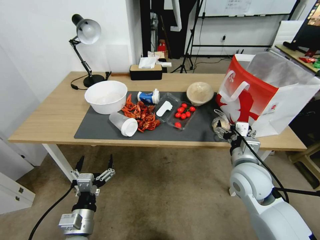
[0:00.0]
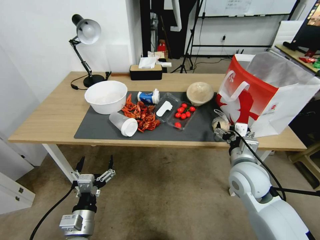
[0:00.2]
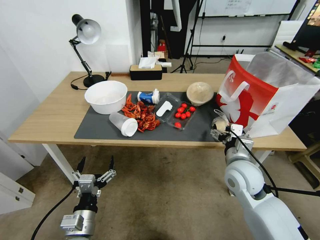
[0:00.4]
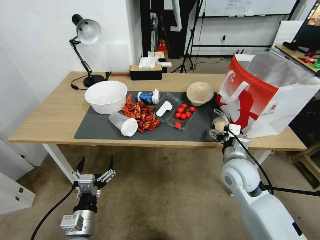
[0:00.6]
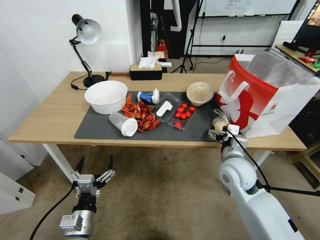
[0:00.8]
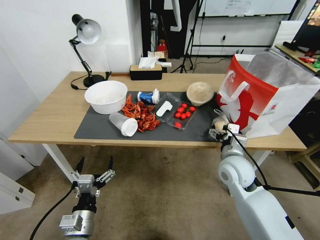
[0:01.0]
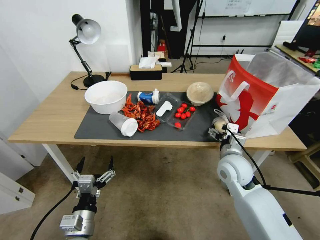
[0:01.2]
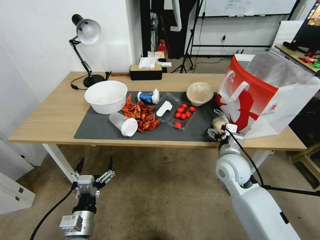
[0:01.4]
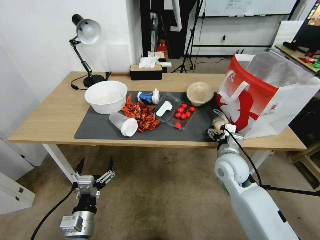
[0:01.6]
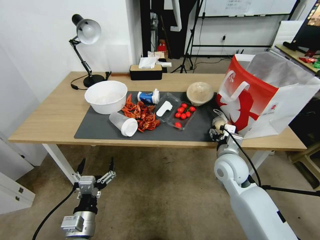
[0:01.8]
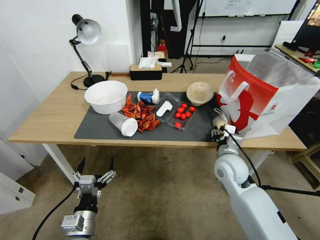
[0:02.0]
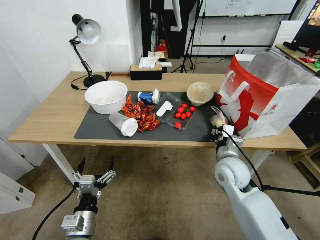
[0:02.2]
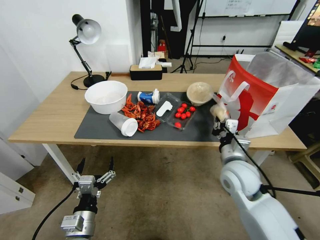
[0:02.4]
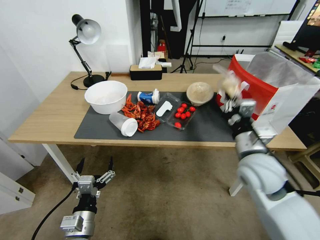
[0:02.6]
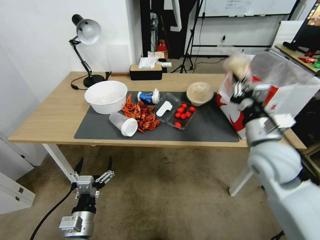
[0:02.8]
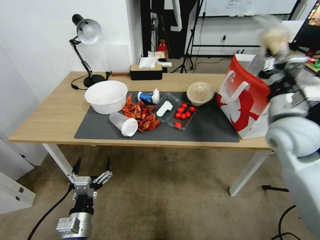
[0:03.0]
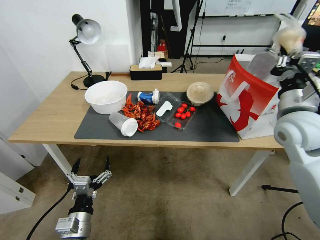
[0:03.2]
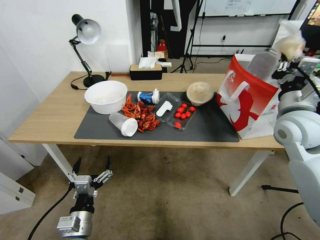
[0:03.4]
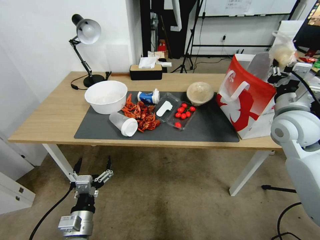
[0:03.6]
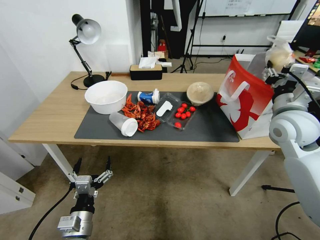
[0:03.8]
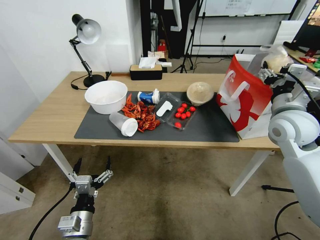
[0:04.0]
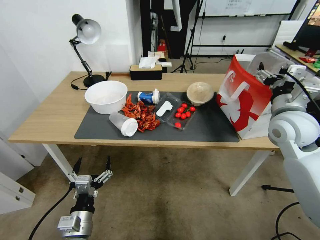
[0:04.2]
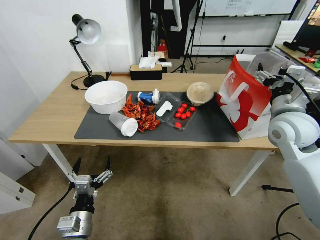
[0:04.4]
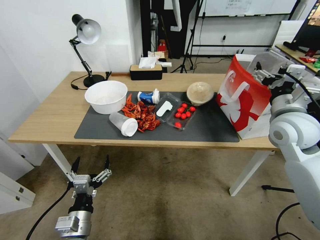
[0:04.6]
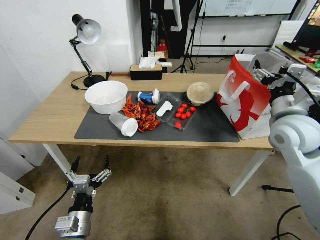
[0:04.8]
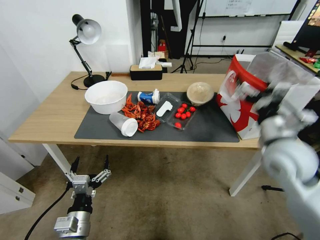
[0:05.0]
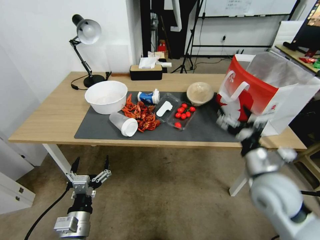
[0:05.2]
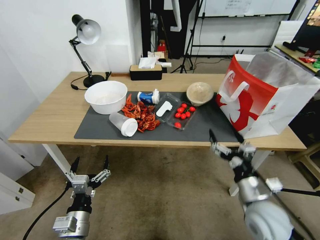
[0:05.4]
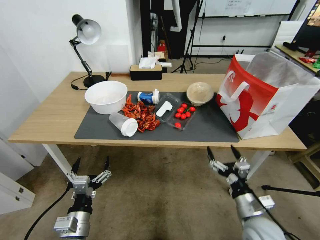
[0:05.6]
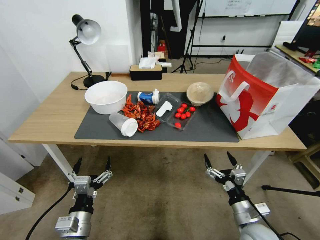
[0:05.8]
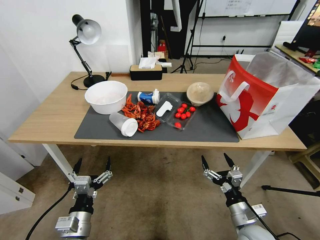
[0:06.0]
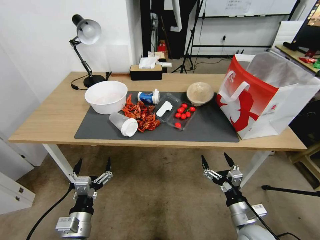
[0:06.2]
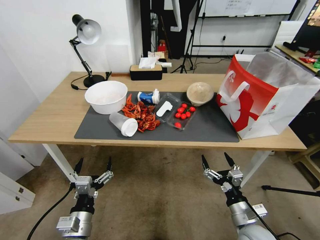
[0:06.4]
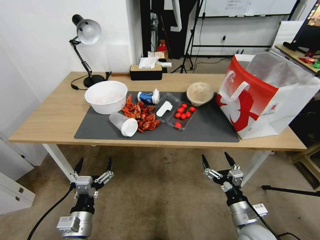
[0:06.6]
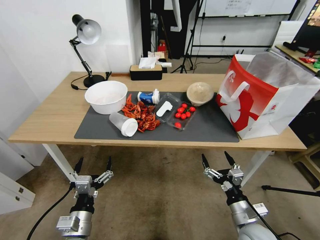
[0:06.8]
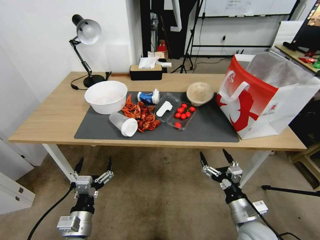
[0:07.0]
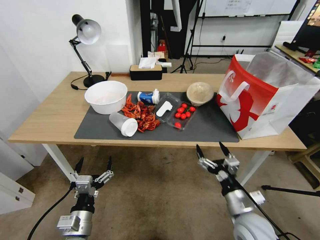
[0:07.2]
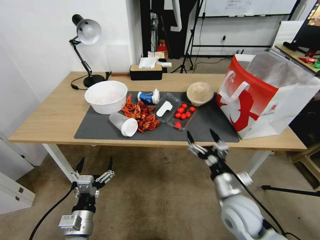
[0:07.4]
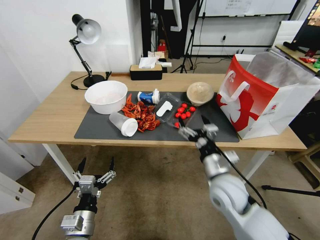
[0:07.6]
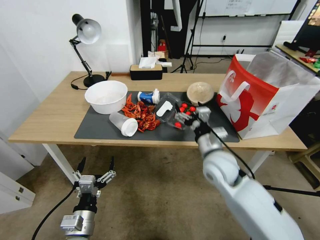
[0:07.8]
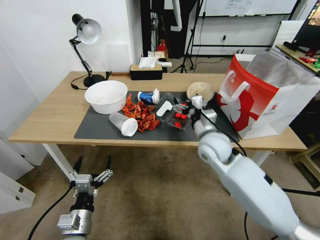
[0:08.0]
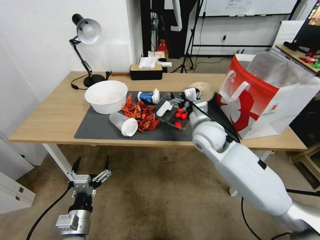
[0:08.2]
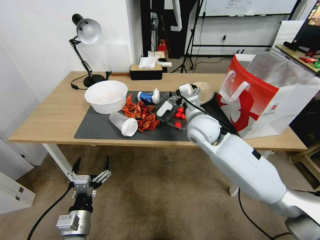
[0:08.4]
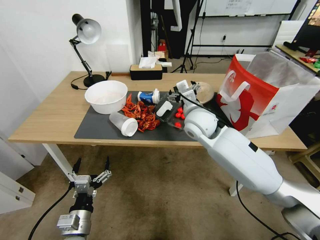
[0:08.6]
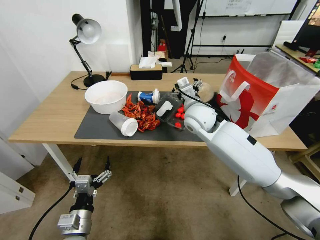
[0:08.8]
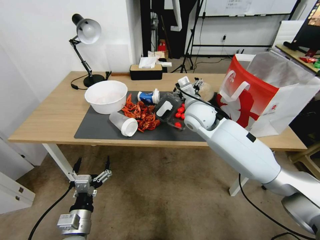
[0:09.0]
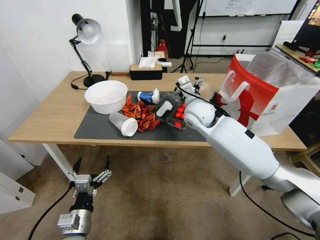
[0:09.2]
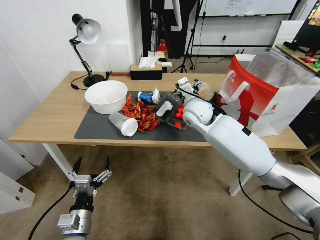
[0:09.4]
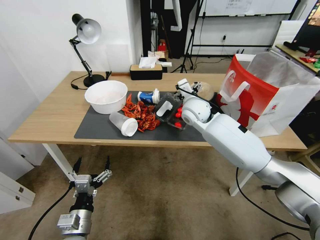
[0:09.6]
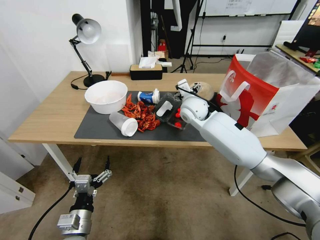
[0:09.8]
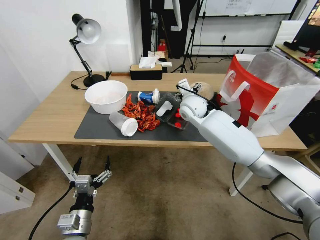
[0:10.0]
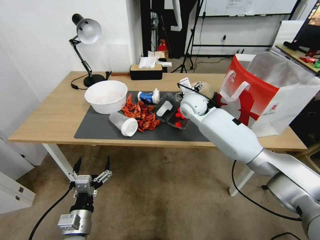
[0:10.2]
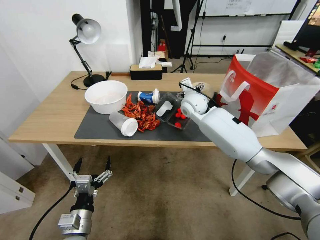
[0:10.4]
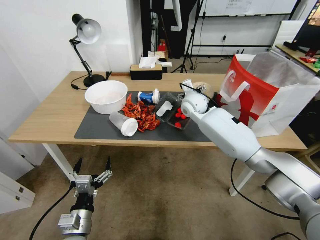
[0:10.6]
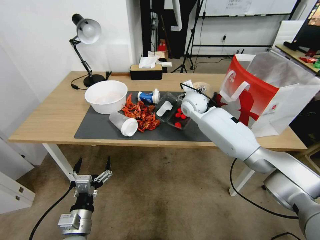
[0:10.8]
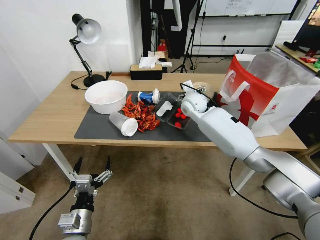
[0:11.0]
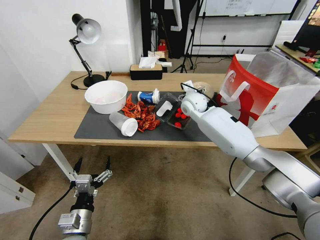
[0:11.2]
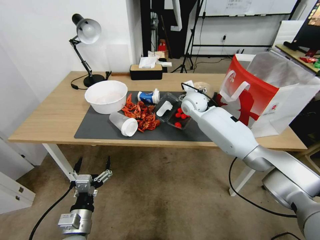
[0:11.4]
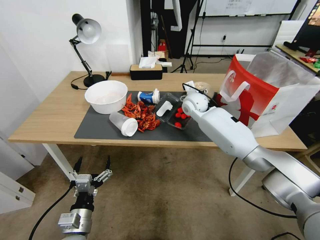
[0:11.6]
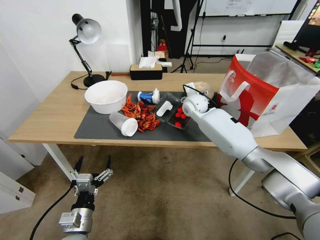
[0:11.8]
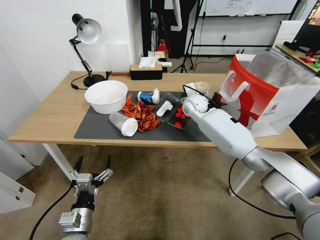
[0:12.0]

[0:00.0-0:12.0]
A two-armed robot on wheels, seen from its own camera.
0:00.0 to 0:01.6: The right gripper is displaced forward by roughly 5 cm.
0:01.6 to 0:03.0: The right gripper travels upward and to the right by roughly 20 cm, and closes up.
0:03.0 to 0:04.4: The right gripper moves some 5 cm, and opens.
0:04.4 to 0:06.0: The right gripper moves downward and backward, roughly 35 cm.
0:06.0 to 0:07.6: The right gripper shifts about 20 cm upward, forward and to the left.
0:07.6 to 0:09.0: The right gripper moves forward and upward, roughly 20 cm.
0:09.0 to 0:10.4: The right gripper shifts approximately 10 cm forward.
0:10.4 to 0:12.0: The grippers stay close to where they were, moving slightly.

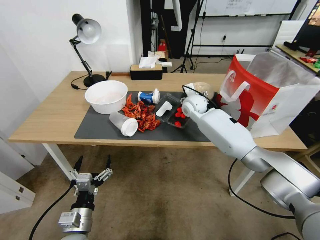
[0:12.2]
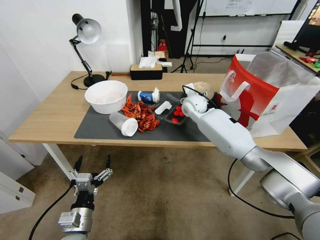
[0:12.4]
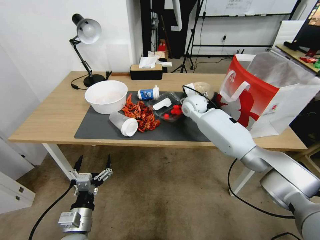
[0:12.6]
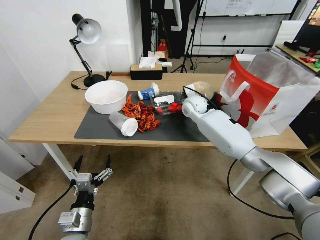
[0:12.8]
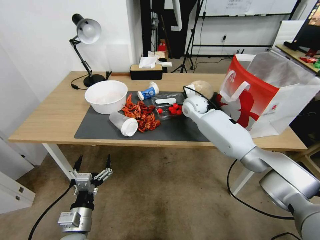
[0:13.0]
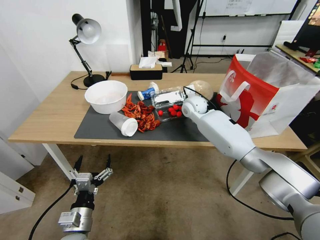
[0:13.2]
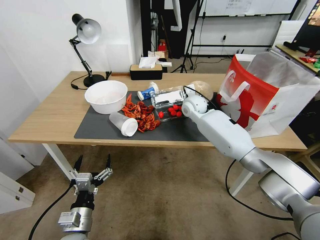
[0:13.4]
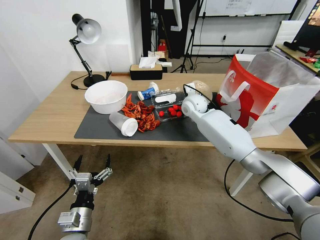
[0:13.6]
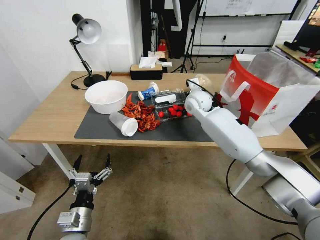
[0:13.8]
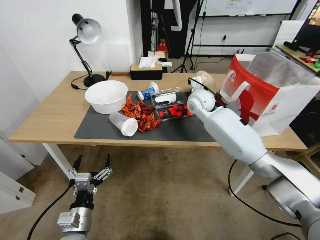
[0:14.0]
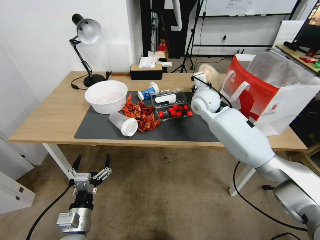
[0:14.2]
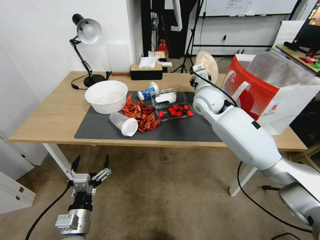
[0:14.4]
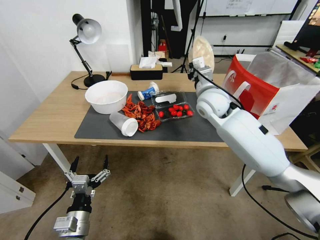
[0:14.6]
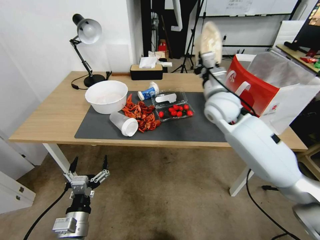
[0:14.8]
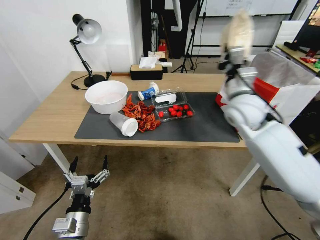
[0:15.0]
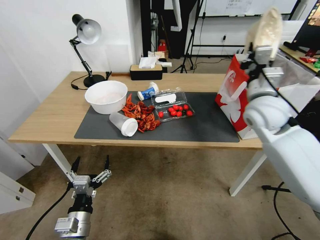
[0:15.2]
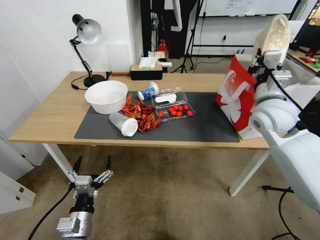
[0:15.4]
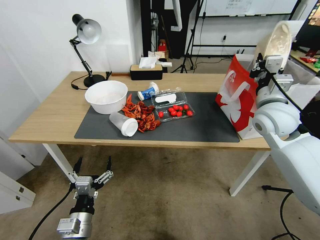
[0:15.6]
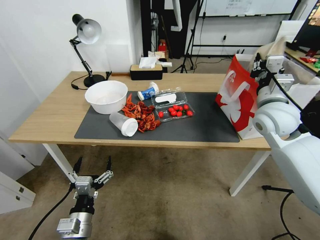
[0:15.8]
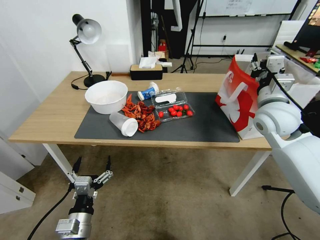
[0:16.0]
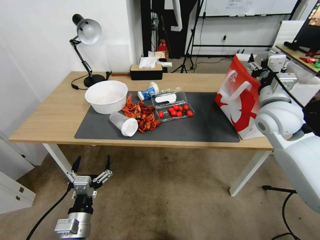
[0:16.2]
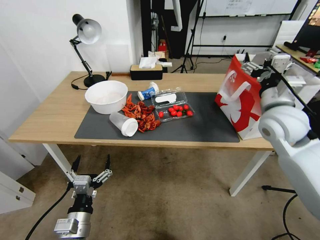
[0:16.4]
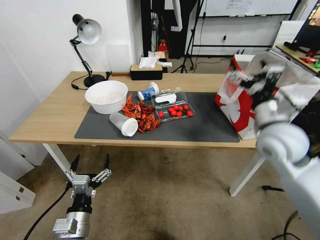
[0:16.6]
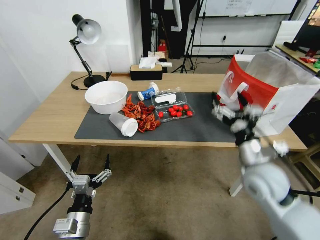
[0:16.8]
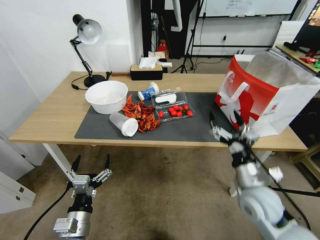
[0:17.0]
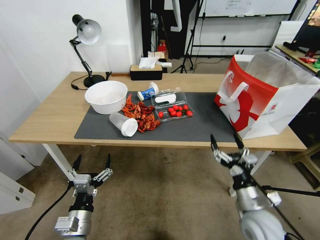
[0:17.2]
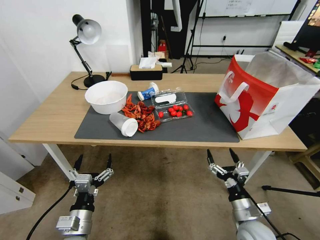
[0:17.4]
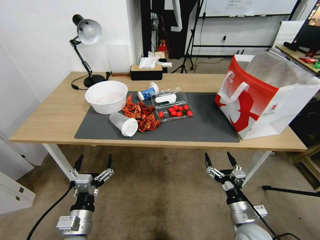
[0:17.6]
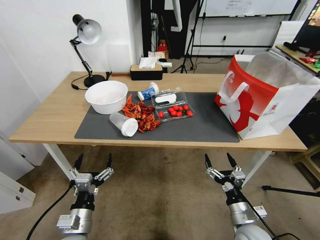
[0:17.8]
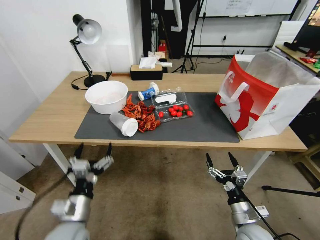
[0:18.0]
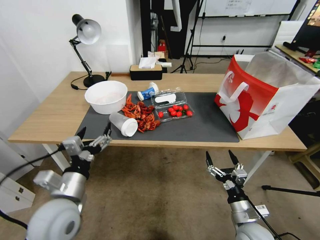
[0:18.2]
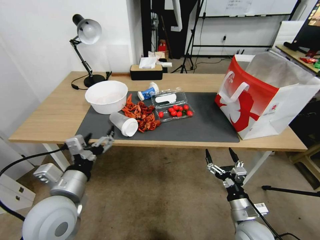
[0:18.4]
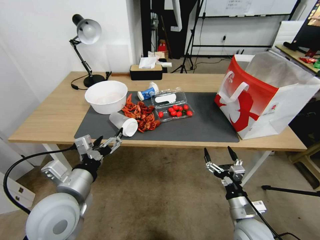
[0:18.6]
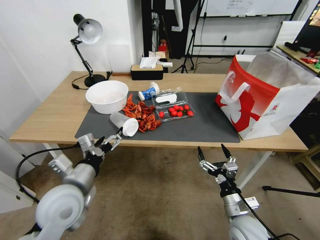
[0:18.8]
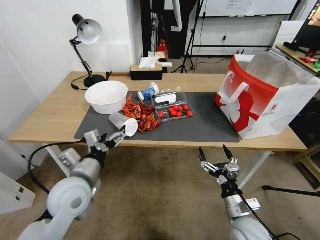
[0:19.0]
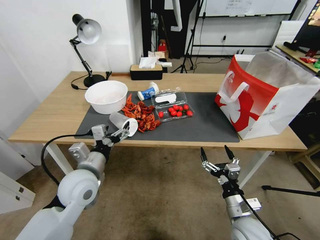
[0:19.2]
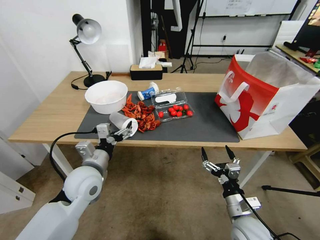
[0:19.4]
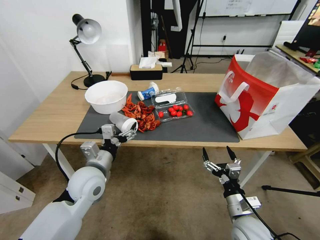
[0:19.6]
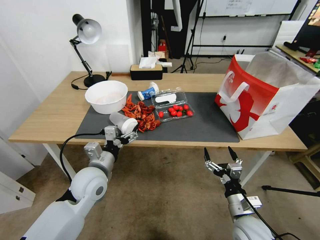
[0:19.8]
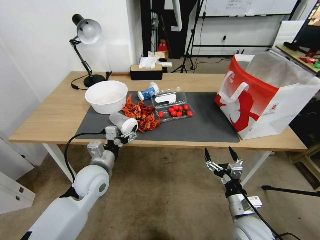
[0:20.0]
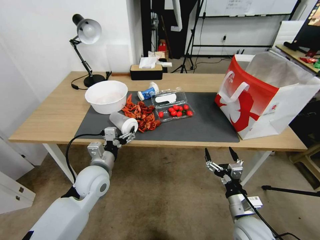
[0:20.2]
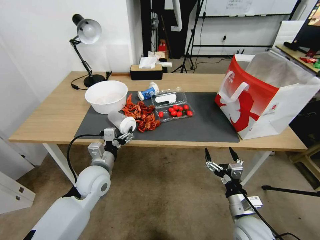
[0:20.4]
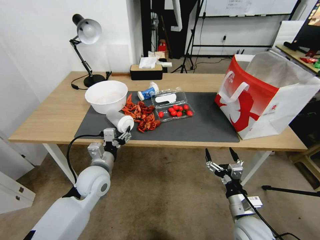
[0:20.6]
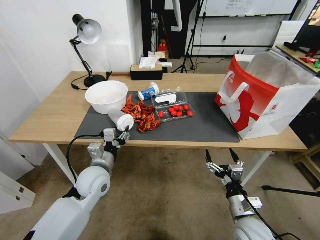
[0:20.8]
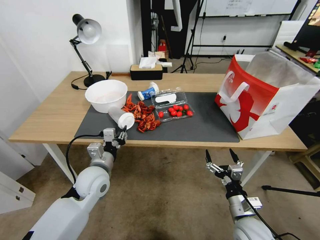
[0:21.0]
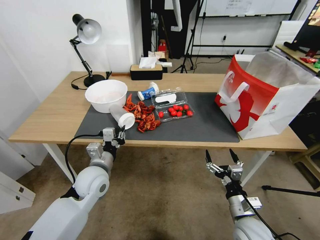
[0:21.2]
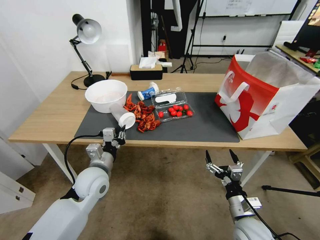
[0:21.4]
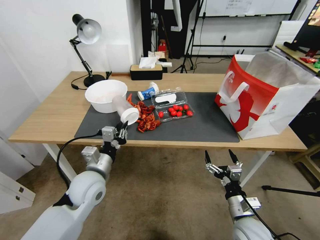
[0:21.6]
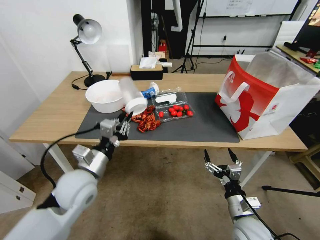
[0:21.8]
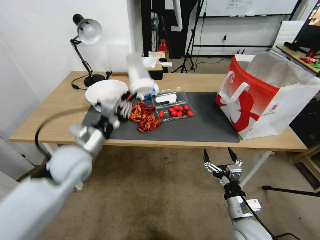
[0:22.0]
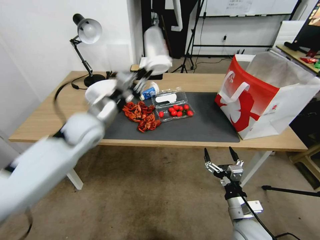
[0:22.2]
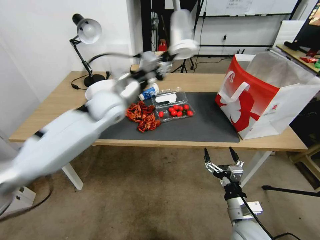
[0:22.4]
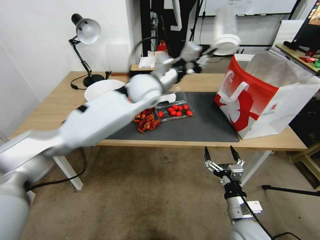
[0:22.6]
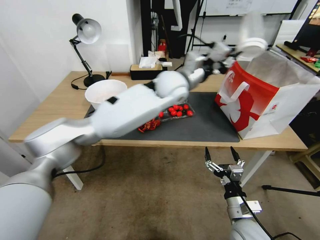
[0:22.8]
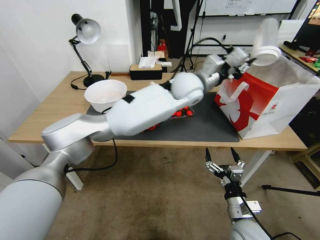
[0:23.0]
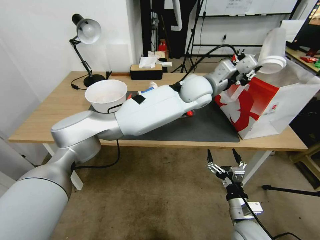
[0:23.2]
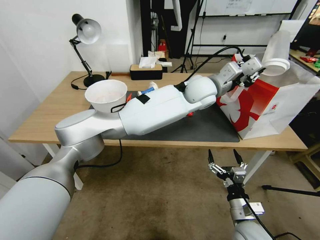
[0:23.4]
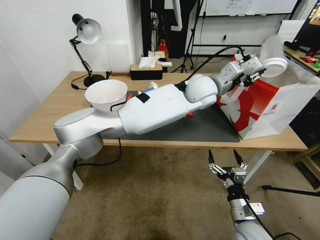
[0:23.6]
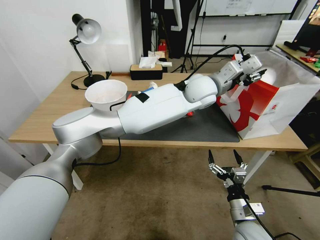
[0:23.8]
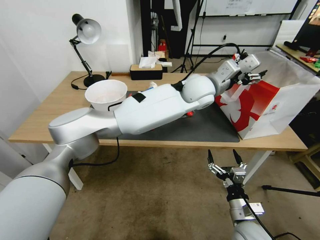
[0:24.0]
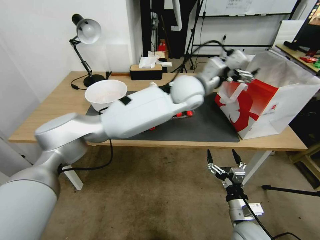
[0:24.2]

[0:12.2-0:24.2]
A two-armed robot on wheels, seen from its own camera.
0:12.2 to 0:13.8: The right gripper closes up.
0:13.8 to 0:15.2: The right gripper heads backward, to the right and upward, covering about 20 cm.
0:15.2 to 0:16.6: The right gripper is displaced backward by approximately 10 cm, and opens its fingers.
0:16.6 to 0:18.2: The right gripper travels downward and backward by some 30 cm. The left gripper goes some 10 cm upward and forward.
0:18.2 to 0:19.8: The left gripper travels forward by roughly 10 cm.
0:19.8 to 0:21.2: The left gripper closes its fingers.
0:21.2 to 0:22.6: The left gripper moves upward, forward and to the right, about 35 cm.
0:22.6 to 0:24.2: The left gripper heads to the right, covering roughly 15 cm, and opens up.
